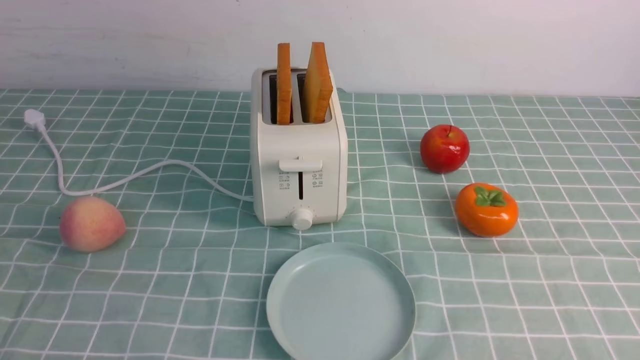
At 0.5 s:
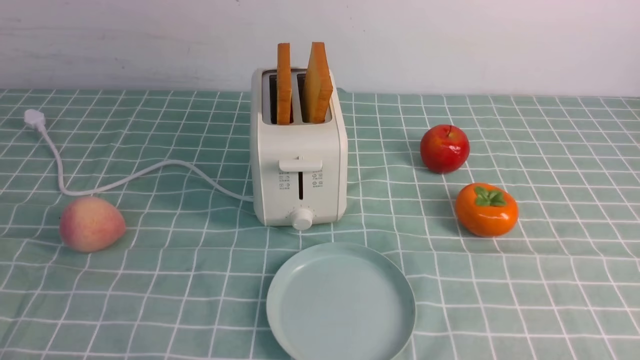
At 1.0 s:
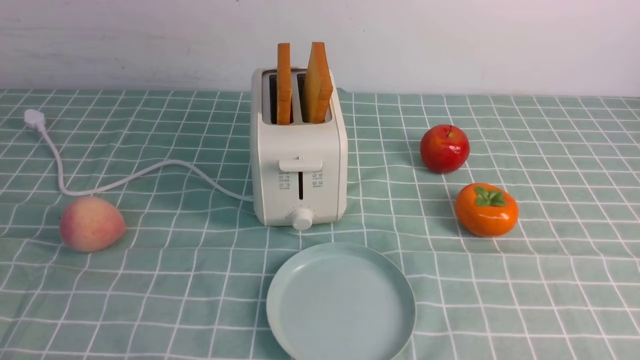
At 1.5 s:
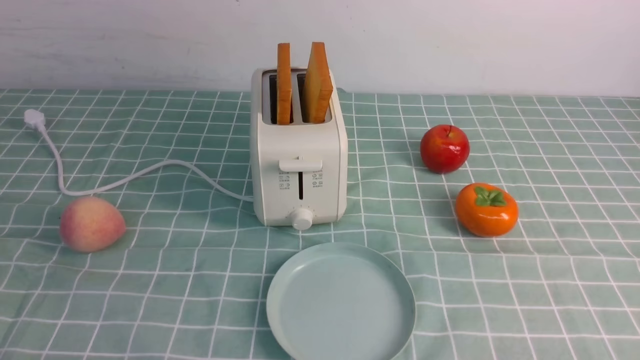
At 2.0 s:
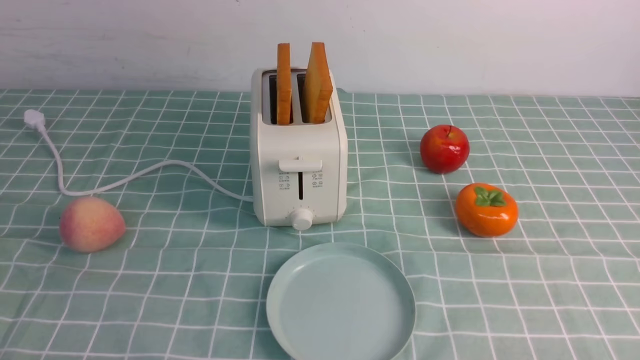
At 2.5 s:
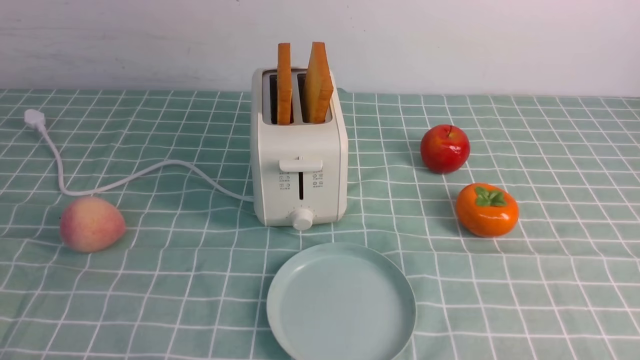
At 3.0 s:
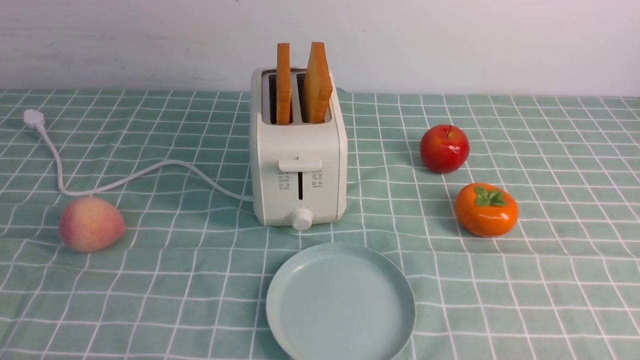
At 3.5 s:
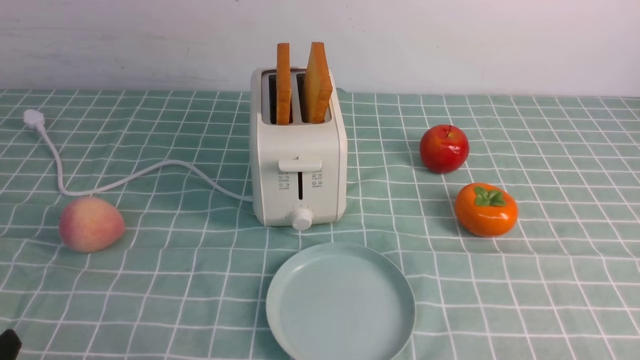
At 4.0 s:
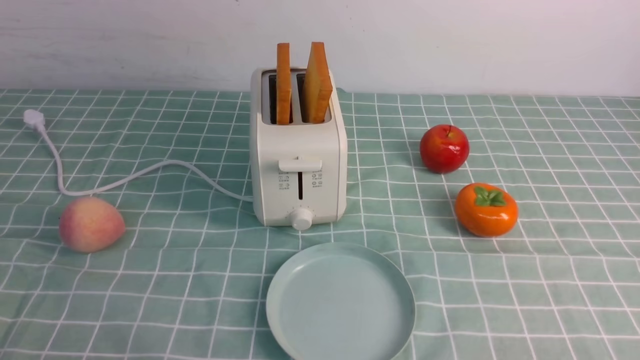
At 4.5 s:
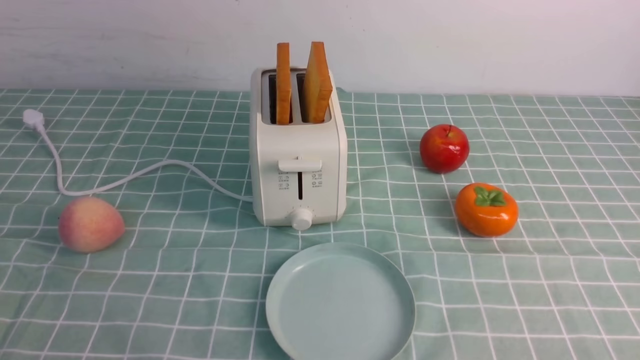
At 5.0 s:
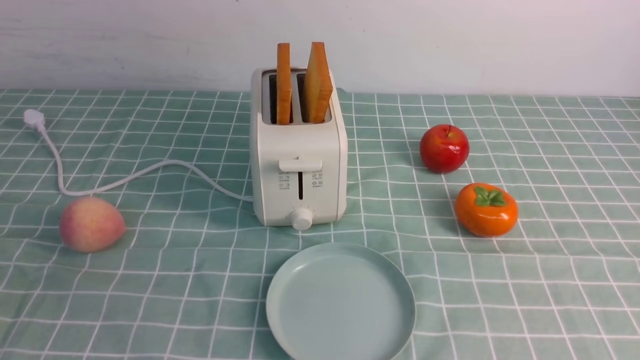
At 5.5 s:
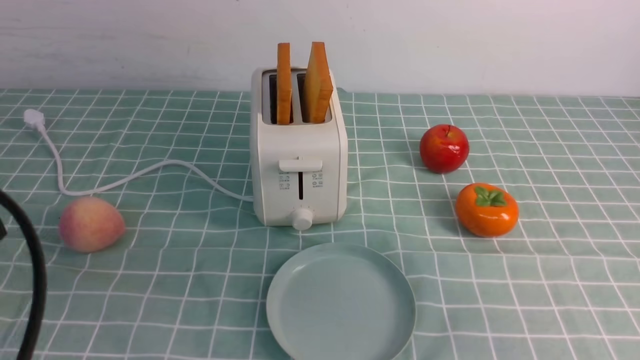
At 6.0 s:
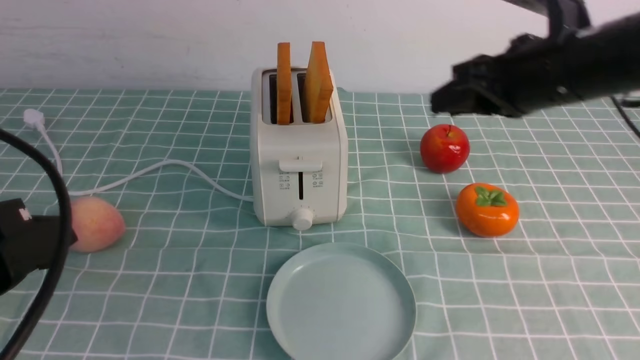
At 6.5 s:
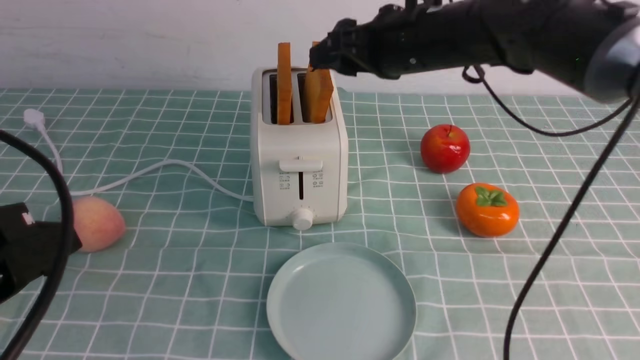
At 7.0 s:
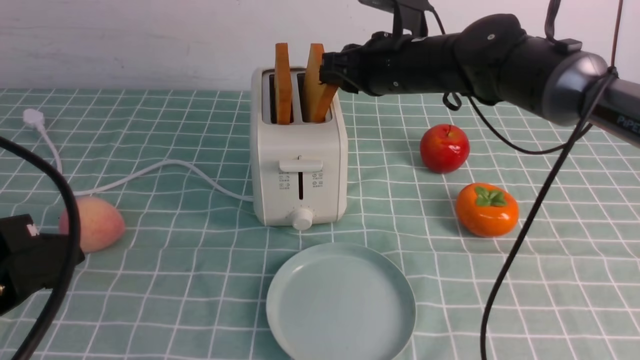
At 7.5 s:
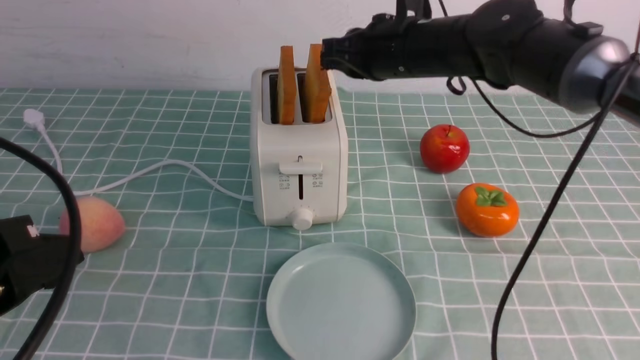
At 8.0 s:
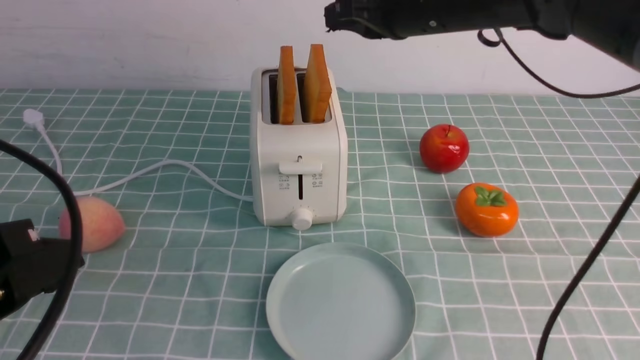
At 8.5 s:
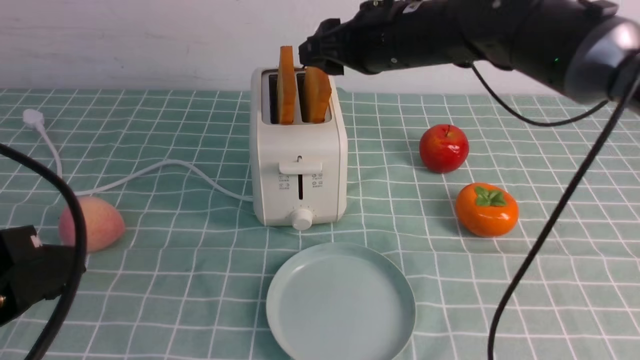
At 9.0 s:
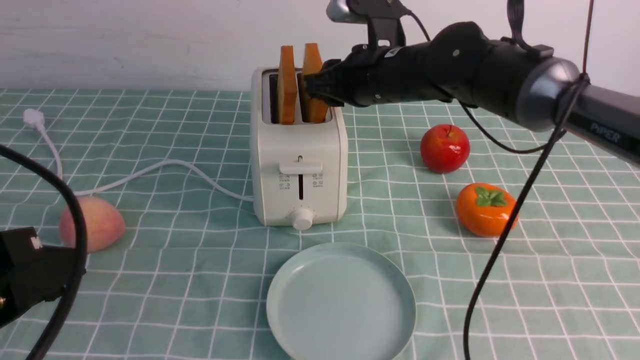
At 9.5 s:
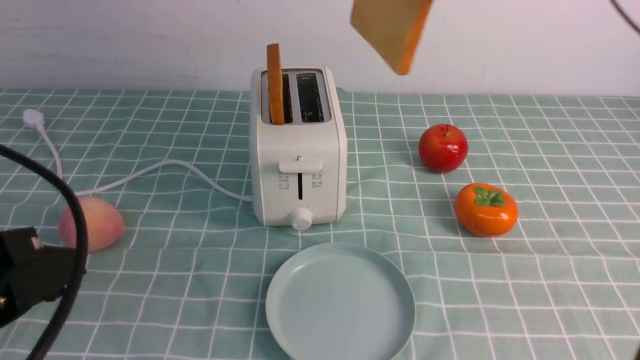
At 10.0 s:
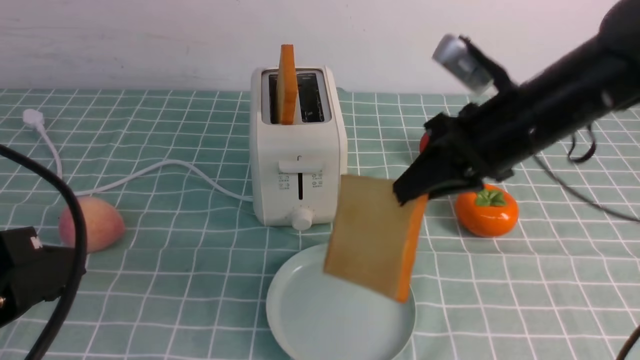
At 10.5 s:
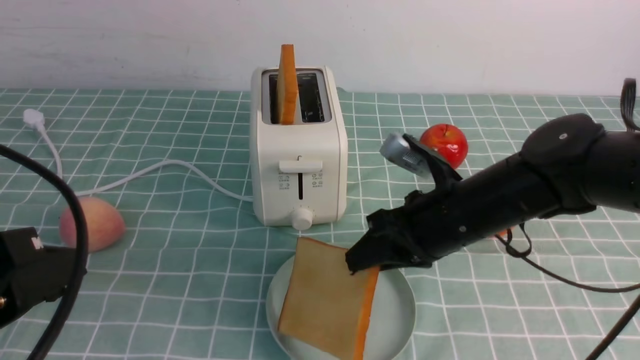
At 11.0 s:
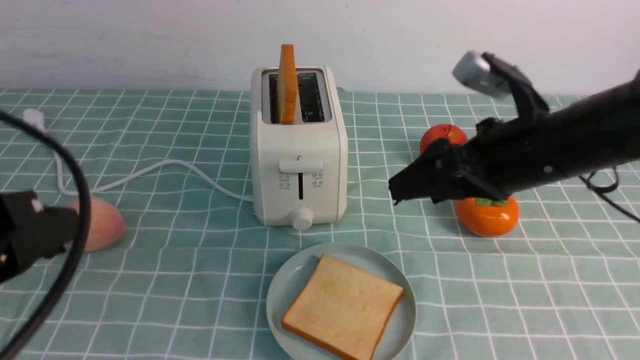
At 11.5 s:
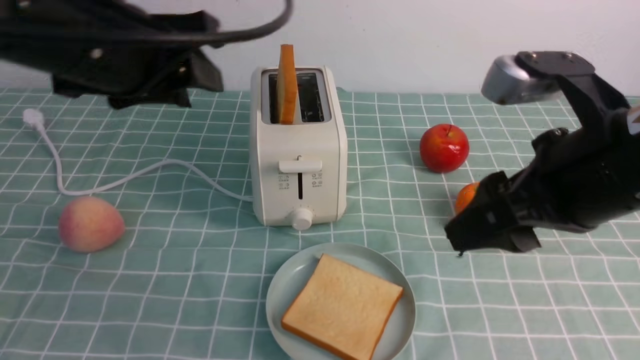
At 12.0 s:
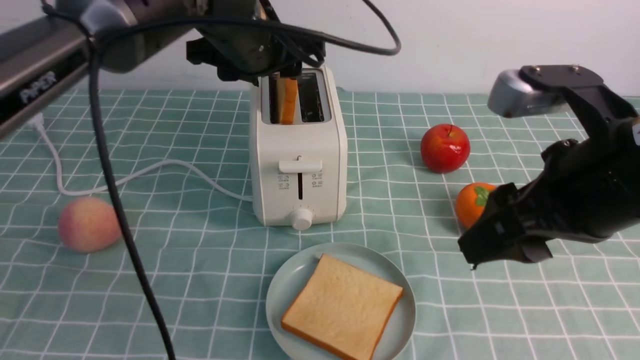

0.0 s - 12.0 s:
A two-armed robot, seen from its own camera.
Task of the whole recording: take toasted bread from bread machine on blue coffee table place on plate.
Step, 0.0 s - 9.5 s: use the right arm to take out a slice of bread.
Step, 10.0 s - 11.0 s: use the right arm to put a slice of bread into the plate.
0.0 s - 2.0 s: Both grippers stay put.
4.0 s - 6.0 s: The right gripper moves forward, upward and to the left, approximately 35 cm, while the left gripper travels upward and forward by about 15 cm.
6.0 s - 8.0 s: The right gripper travels to the left and forward by some 10 cm, and closes.
8.0 s - 10.0 s: The right gripper swings up and down, roughly 10 cm each way, with 2 reversals, and opens, then closes again.
10.0 s - 12.0 s: The left gripper moves forward and to the right, some 35 cm, and opens, while the right gripper moves backward and upward, roughly 15 cm, and opens its fingers.

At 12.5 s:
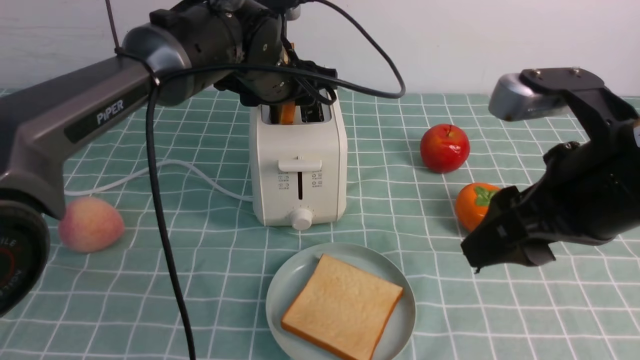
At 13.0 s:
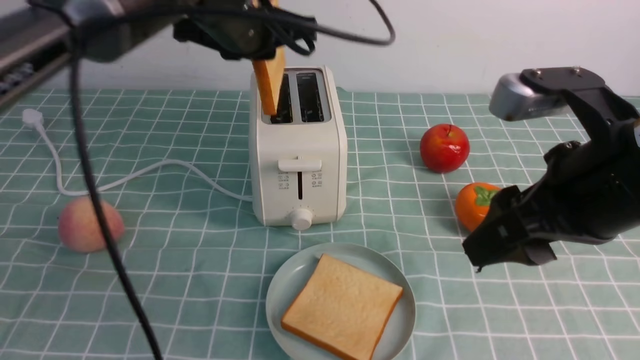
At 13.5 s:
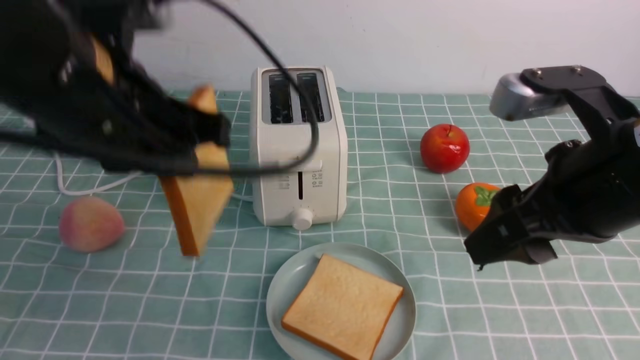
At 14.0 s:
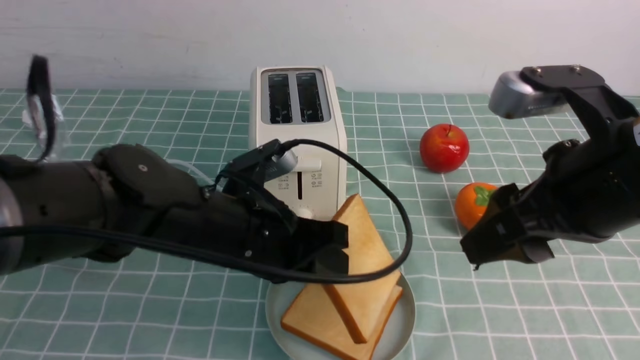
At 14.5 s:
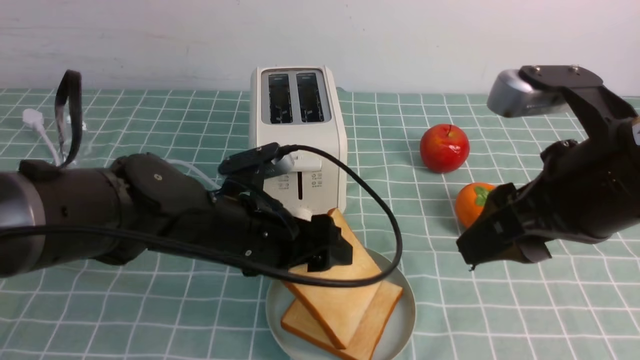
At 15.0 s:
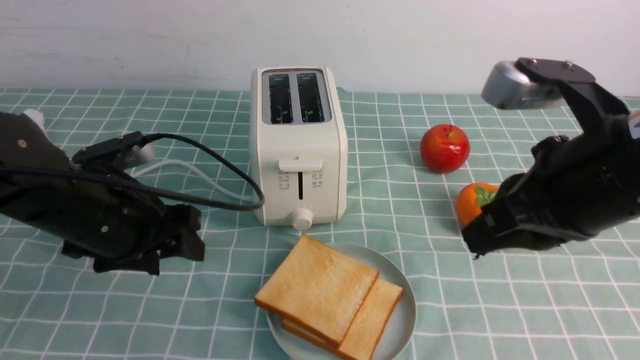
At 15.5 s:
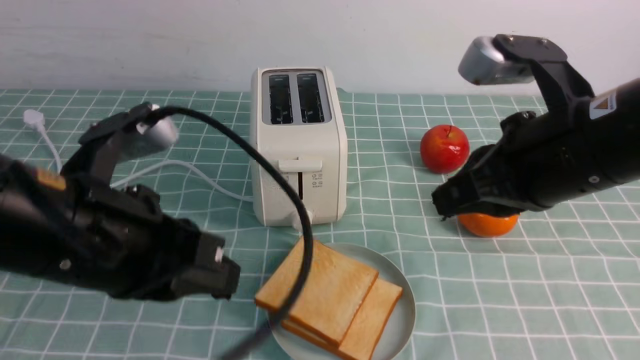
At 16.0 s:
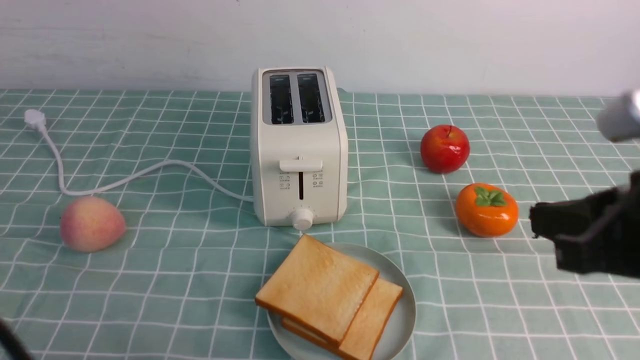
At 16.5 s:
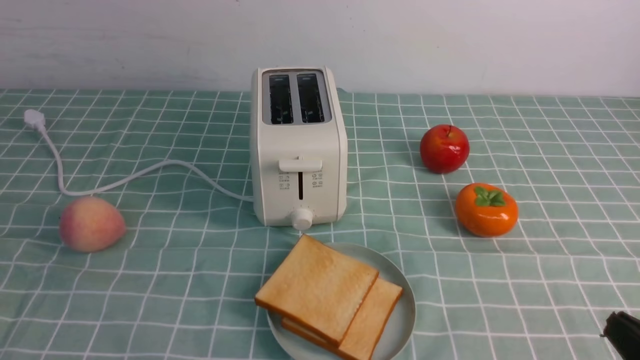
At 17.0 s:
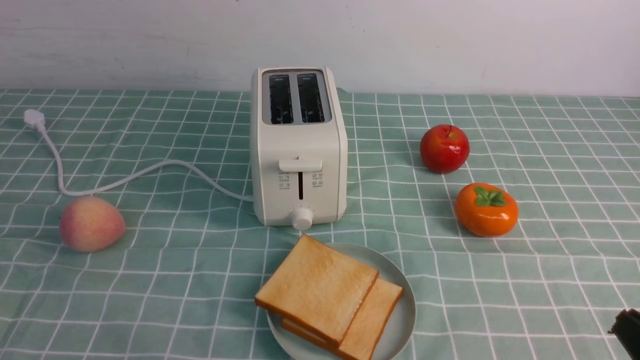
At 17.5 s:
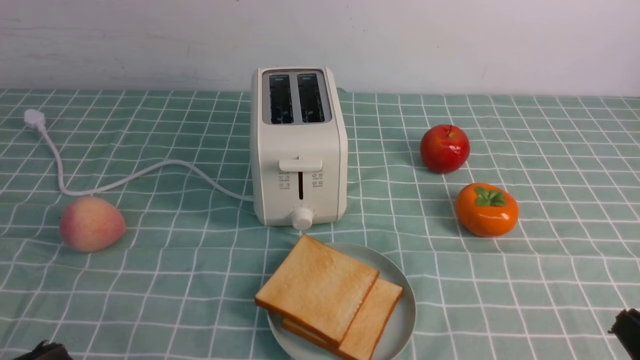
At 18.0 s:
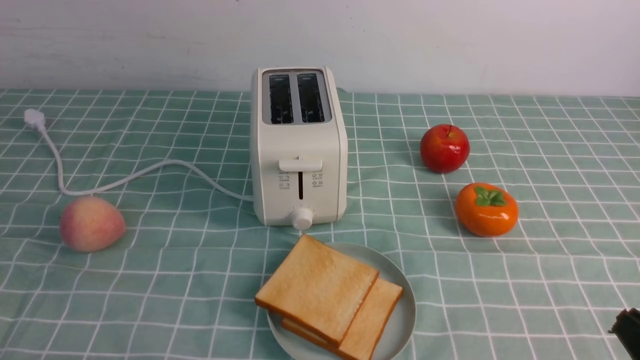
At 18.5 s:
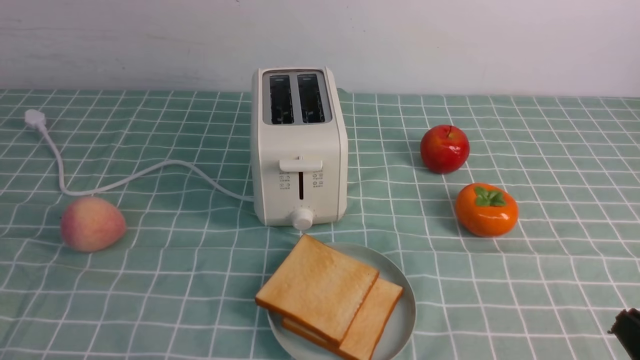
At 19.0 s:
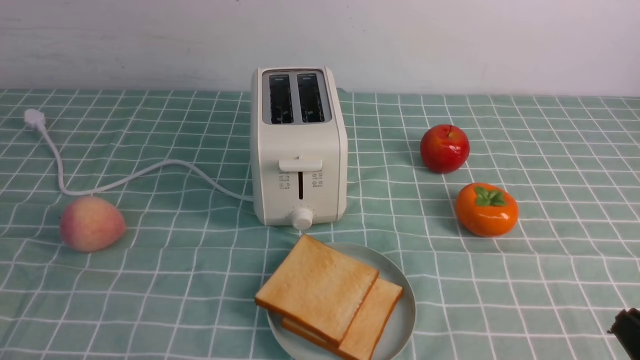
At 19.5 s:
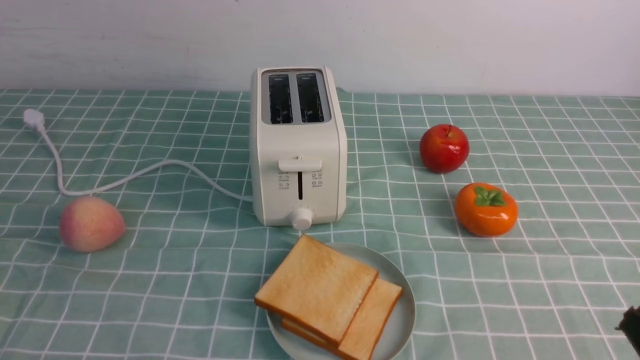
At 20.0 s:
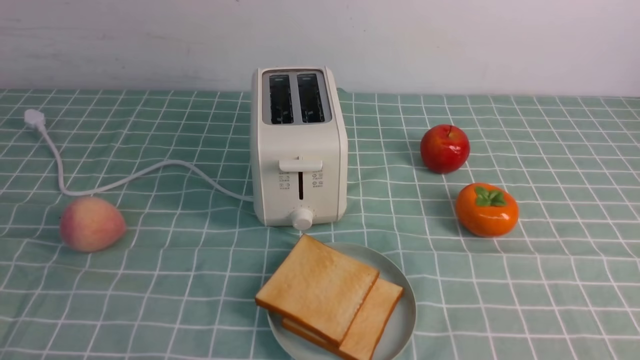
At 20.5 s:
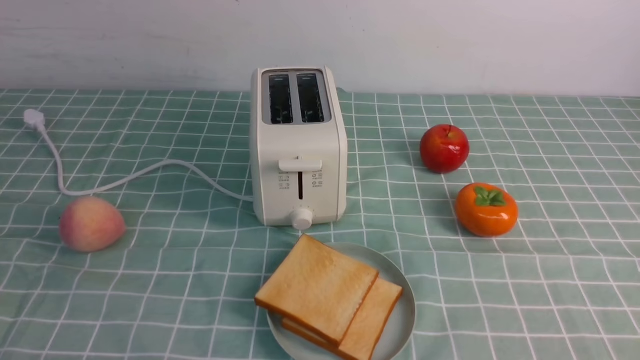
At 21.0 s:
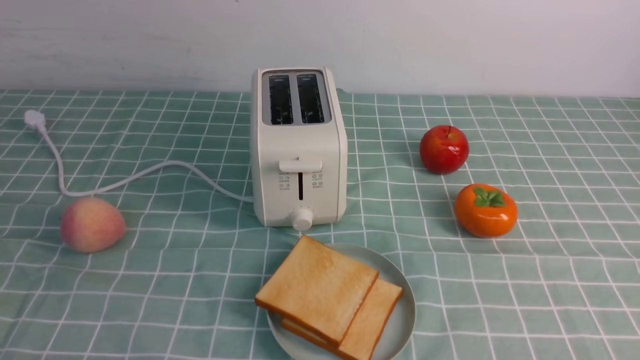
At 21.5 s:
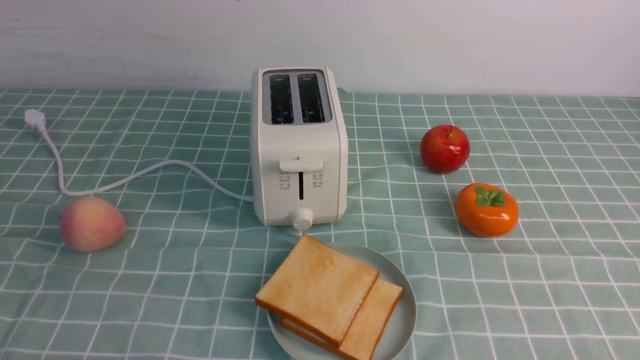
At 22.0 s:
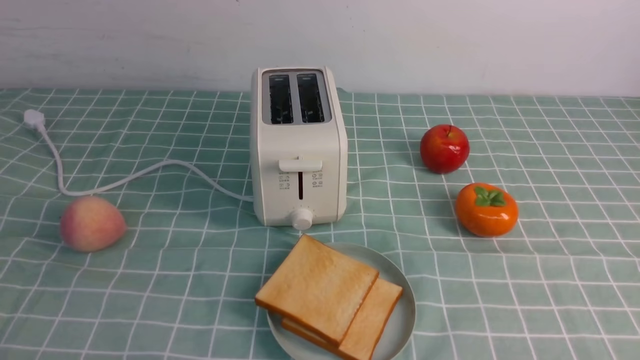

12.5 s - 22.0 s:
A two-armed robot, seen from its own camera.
Task of the whole recording: take toasted bread from bread machine on blue coffee table place on plate.
Step, 13.5 s - 15.0 s: use the left arm to put a slice of bread into the empty plate.
12.5 s - 14.5 s: The left gripper shifts about 20 cm backward and downward, and closes, then opens again.
14.5 s - 16.5 s: The left gripper moves backward and to the left, some 30 cm, and closes up; the right gripper is displaced downward, backward and to the right by roughly 20 cm, and closes its fingers.
